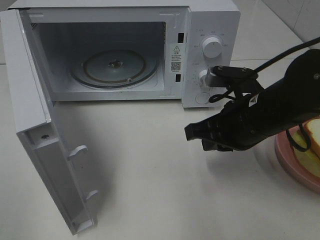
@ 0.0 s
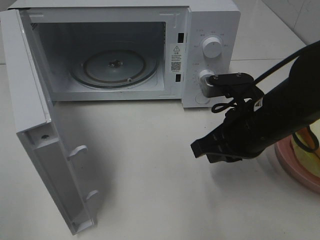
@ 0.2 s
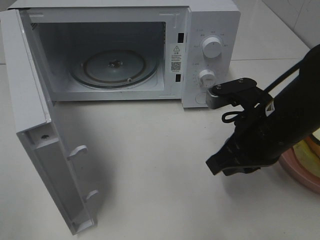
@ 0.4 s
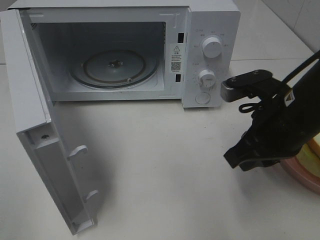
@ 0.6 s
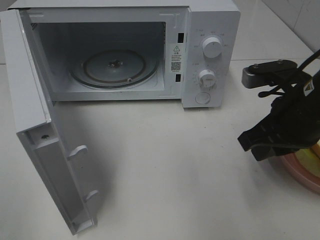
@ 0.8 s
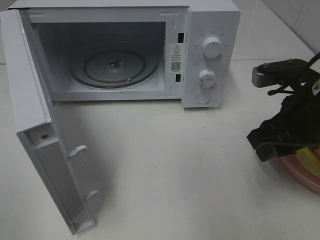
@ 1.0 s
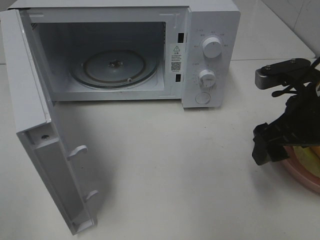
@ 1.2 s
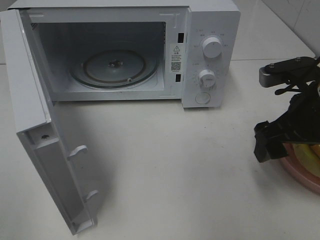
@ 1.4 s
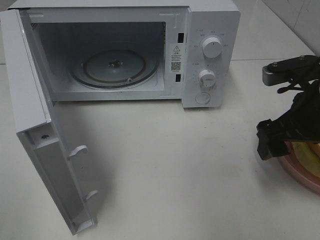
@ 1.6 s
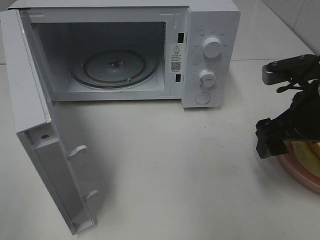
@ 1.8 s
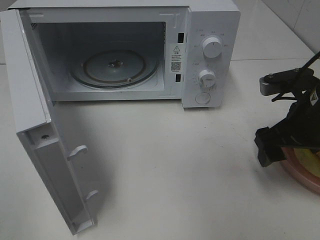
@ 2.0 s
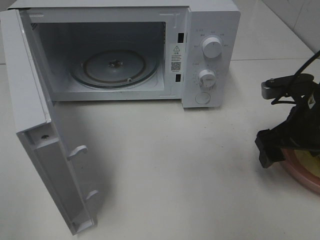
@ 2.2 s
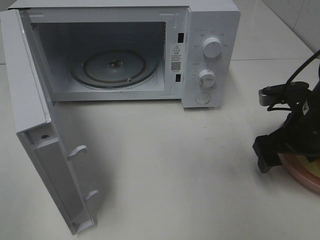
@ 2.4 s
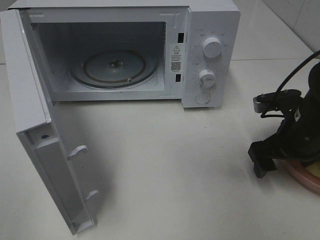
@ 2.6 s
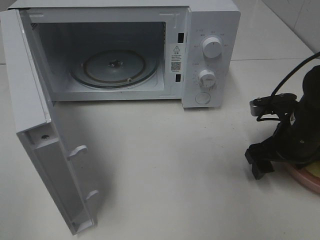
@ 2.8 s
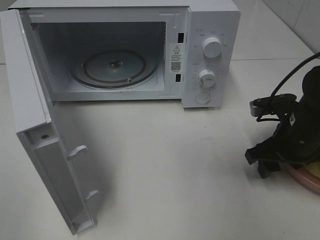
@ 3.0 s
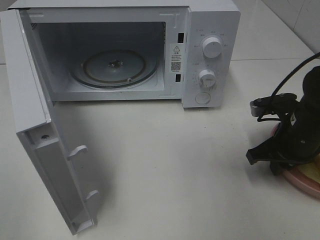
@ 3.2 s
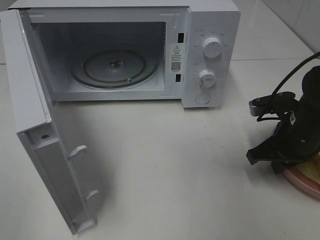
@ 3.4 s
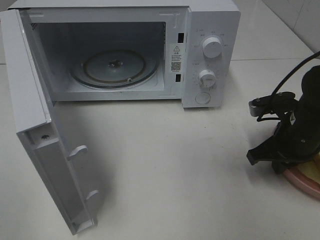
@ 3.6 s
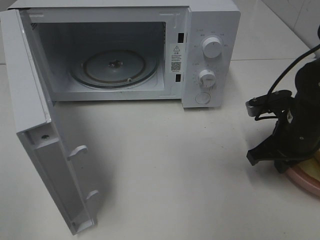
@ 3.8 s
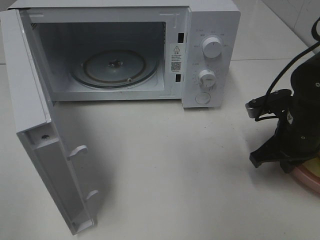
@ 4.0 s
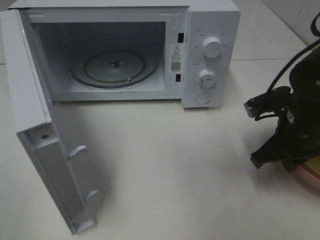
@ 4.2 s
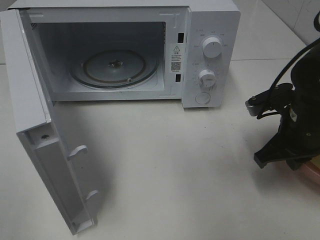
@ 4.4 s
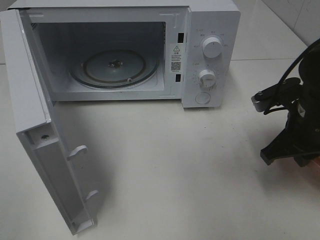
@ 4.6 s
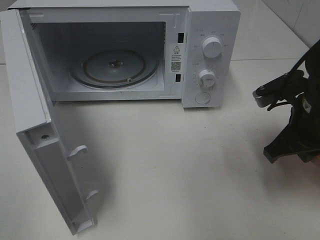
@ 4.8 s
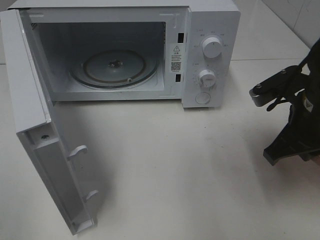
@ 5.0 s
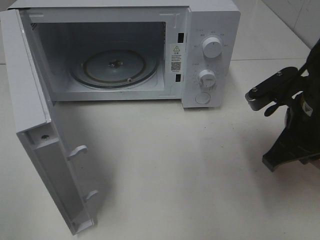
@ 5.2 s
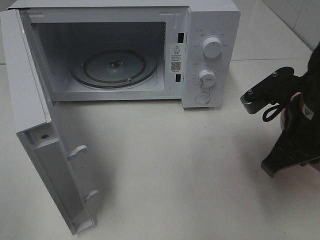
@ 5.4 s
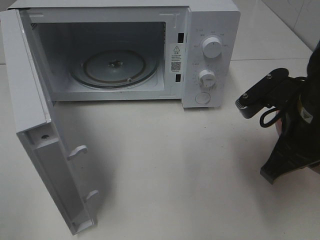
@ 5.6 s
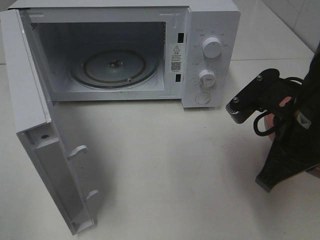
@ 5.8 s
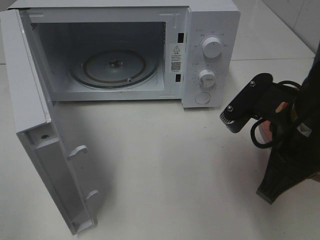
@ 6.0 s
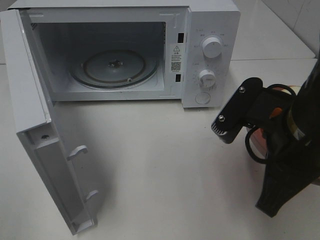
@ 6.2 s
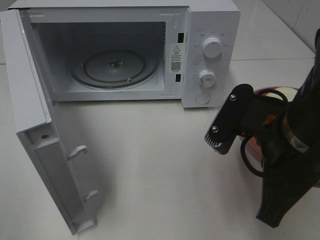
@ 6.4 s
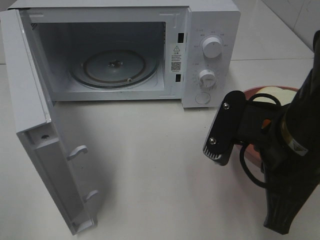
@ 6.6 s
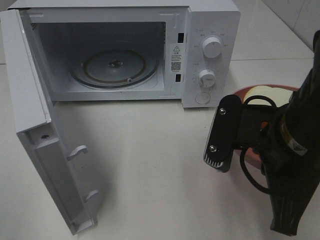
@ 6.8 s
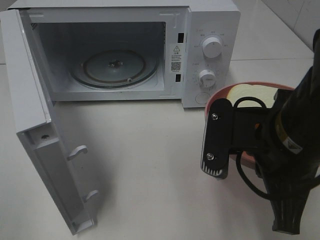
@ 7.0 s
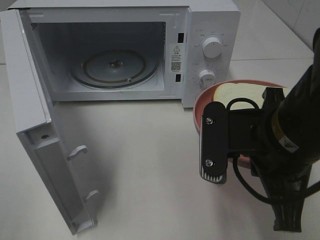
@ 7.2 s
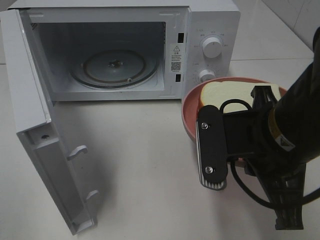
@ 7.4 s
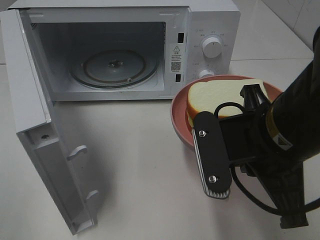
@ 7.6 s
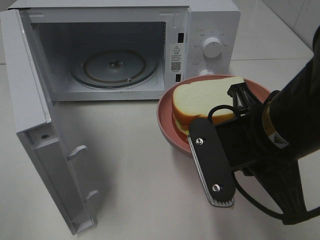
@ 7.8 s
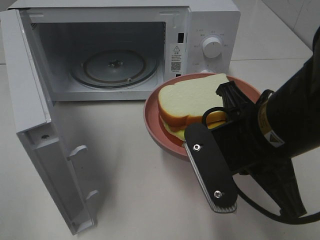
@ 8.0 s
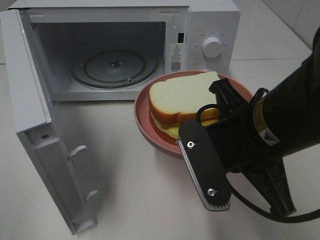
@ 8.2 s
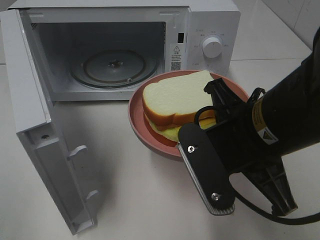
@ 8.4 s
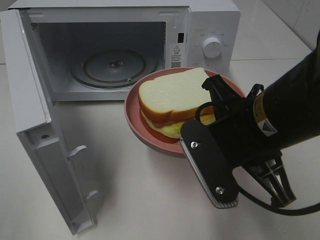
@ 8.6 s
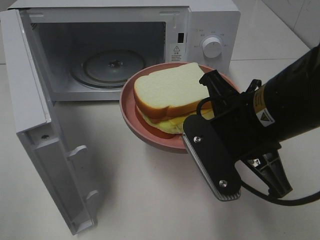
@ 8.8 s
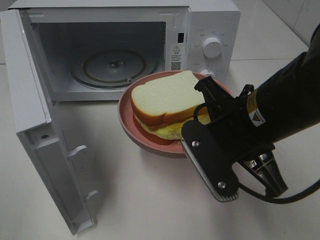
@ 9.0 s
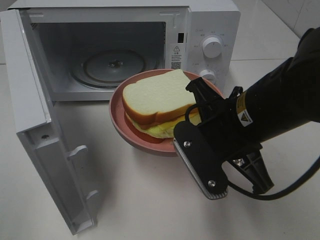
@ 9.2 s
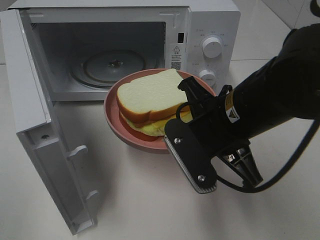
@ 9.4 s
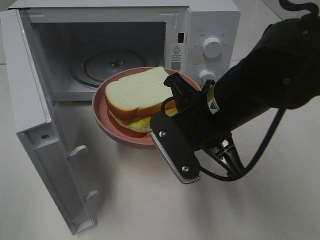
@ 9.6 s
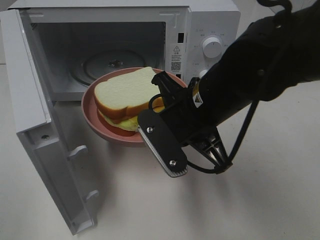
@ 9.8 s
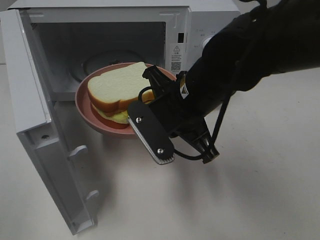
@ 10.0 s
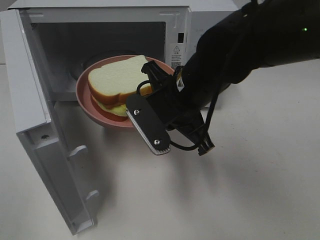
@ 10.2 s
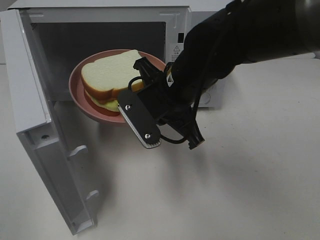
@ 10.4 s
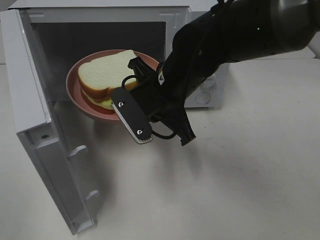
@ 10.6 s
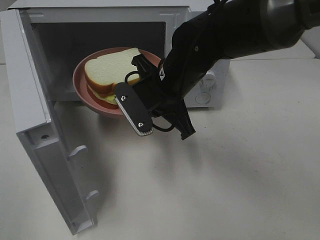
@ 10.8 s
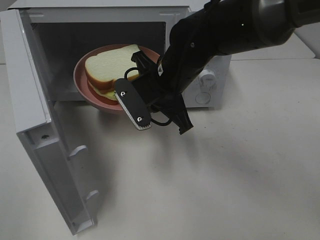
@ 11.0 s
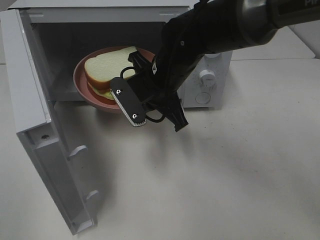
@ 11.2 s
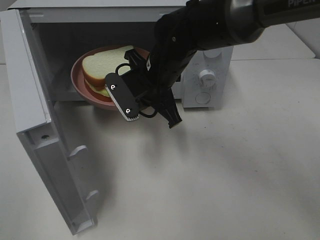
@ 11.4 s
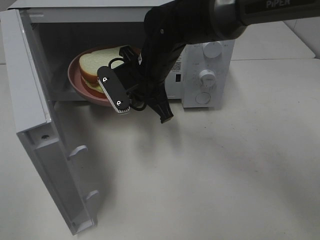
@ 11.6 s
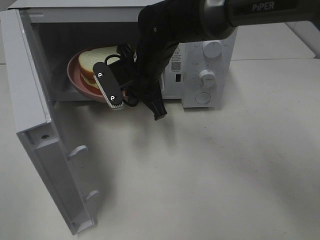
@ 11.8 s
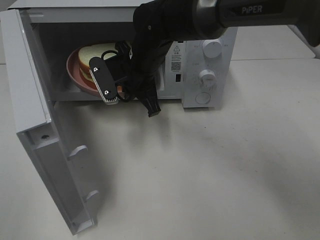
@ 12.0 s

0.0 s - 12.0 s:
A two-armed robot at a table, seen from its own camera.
Task of the whole recording: Heat Sandwich.
Step, 0.0 s - 4.2 s: Right hand: grab the plate with the sandwich.
0.0 s - 1.6 s: The right gripper moves to the right, some 10 cm, and opens.
1.6 s - 3.0 s: The right gripper is displaced downward by approximately 10 cm.
3.0 s - 4.4 s: The right gripper closes up.
4.4 s - 6.0 s: The right gripper is displaced backward, upward and to the left by about 15 cm.
9.0 s - 10.4 s: The right gripper goes roughly 10 cm forward and to the left.
10.4 s - 12.0 s: The right gripper shifts some 10 cm forward and to the left.

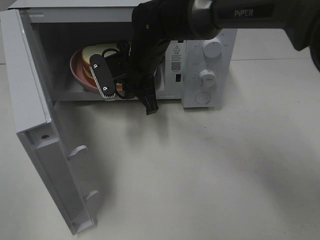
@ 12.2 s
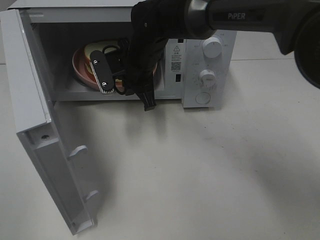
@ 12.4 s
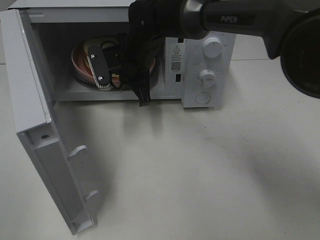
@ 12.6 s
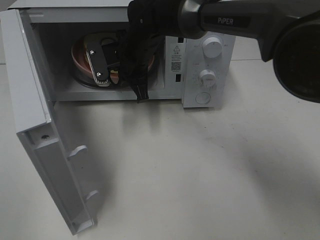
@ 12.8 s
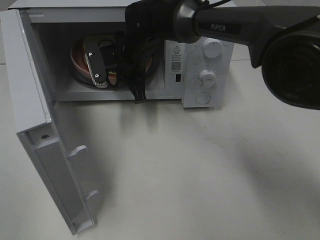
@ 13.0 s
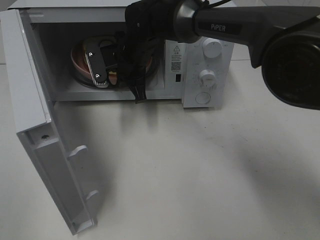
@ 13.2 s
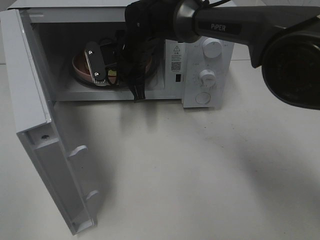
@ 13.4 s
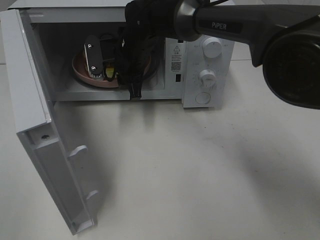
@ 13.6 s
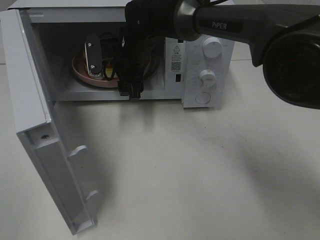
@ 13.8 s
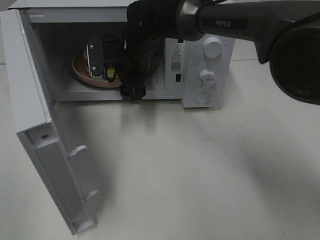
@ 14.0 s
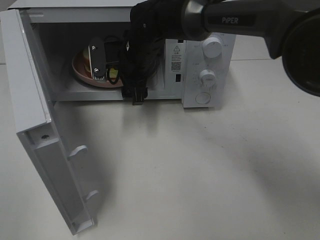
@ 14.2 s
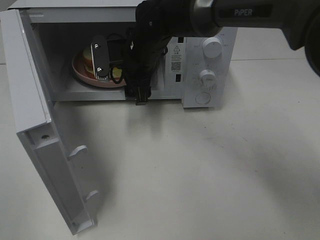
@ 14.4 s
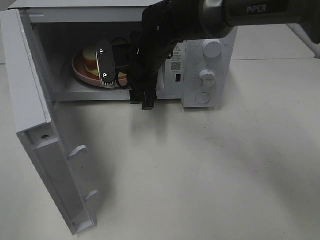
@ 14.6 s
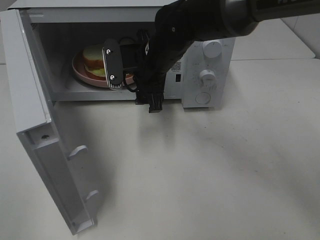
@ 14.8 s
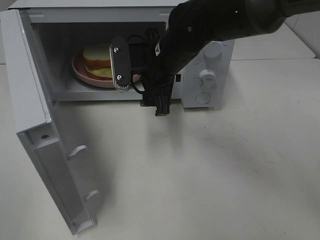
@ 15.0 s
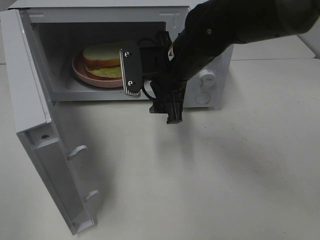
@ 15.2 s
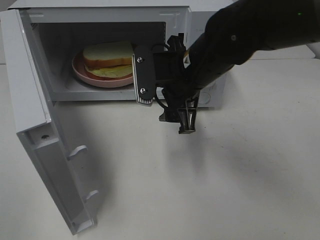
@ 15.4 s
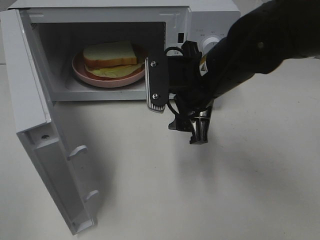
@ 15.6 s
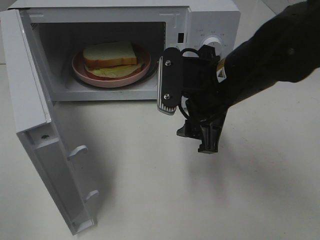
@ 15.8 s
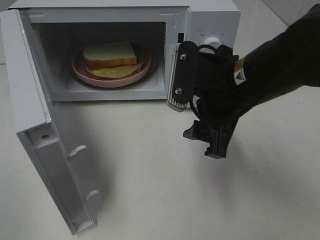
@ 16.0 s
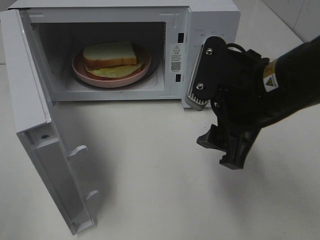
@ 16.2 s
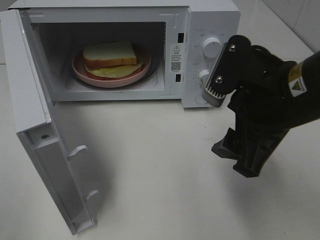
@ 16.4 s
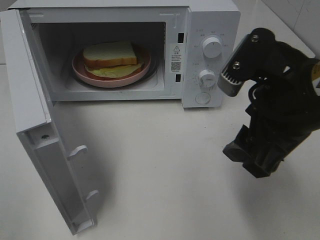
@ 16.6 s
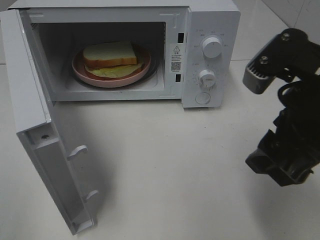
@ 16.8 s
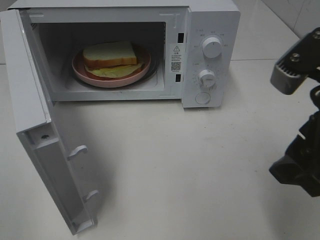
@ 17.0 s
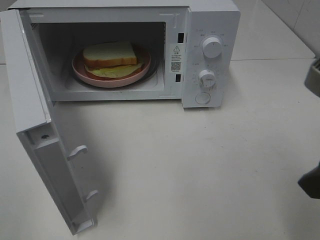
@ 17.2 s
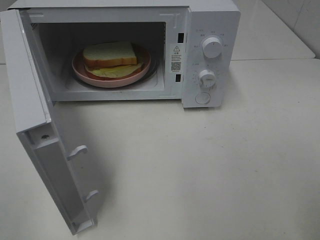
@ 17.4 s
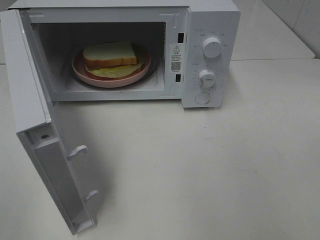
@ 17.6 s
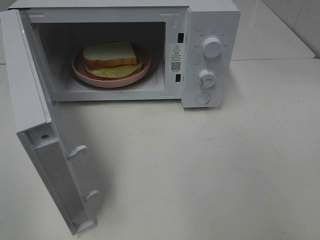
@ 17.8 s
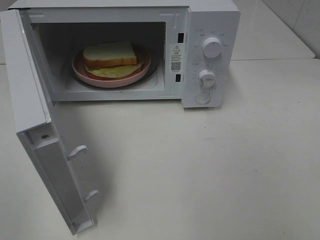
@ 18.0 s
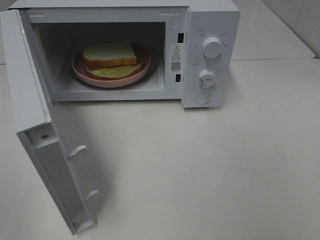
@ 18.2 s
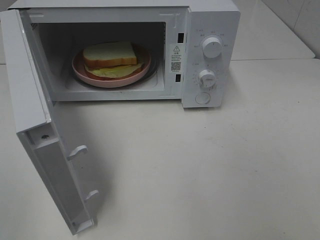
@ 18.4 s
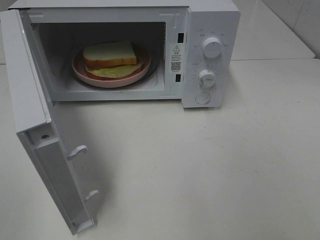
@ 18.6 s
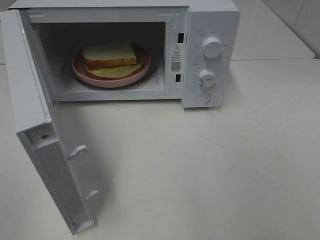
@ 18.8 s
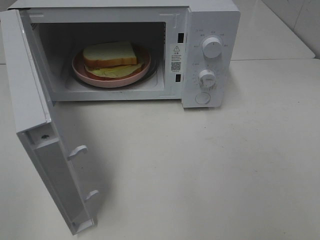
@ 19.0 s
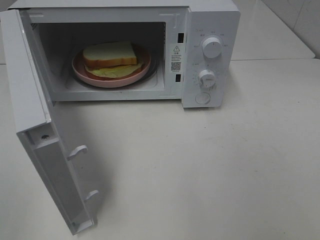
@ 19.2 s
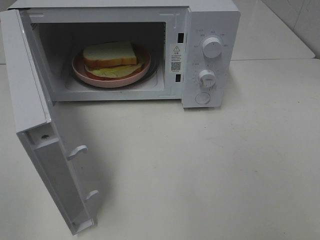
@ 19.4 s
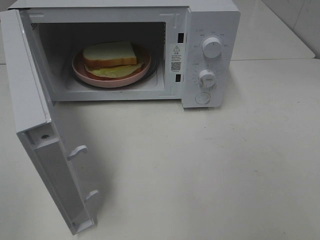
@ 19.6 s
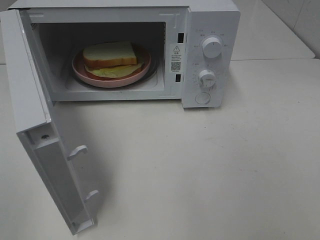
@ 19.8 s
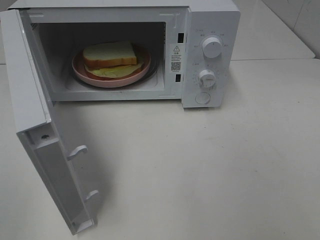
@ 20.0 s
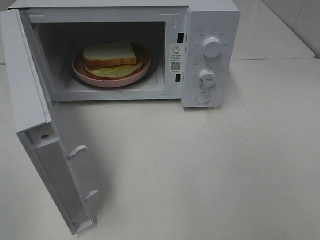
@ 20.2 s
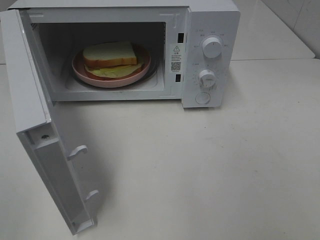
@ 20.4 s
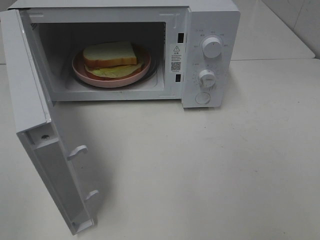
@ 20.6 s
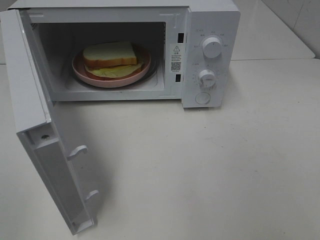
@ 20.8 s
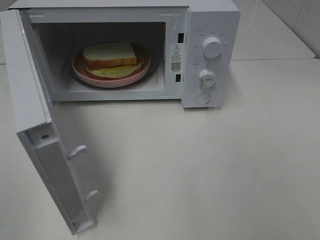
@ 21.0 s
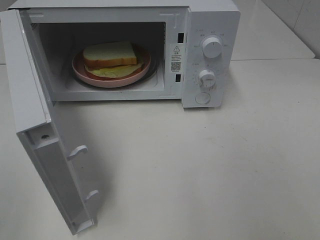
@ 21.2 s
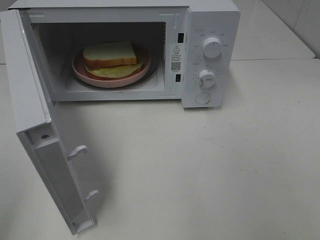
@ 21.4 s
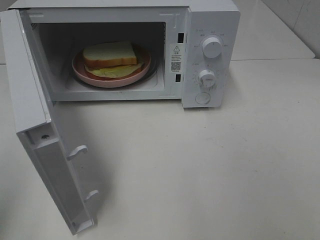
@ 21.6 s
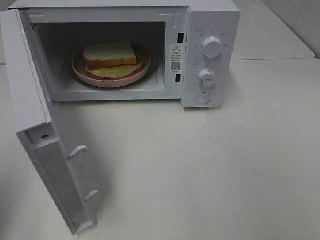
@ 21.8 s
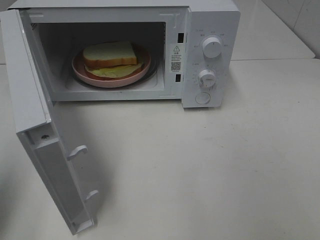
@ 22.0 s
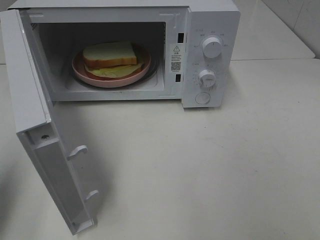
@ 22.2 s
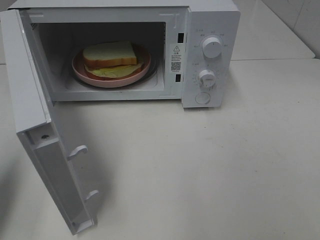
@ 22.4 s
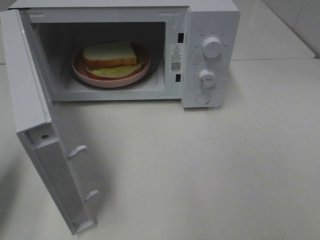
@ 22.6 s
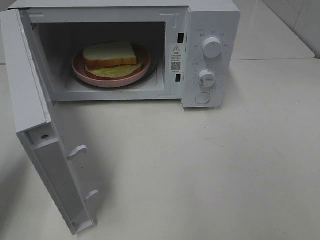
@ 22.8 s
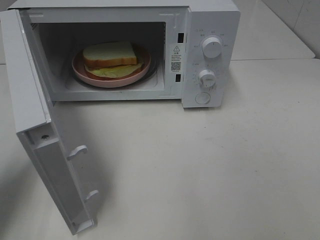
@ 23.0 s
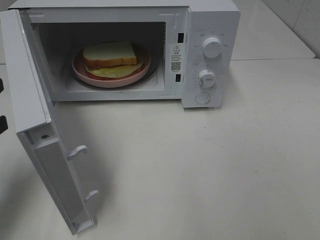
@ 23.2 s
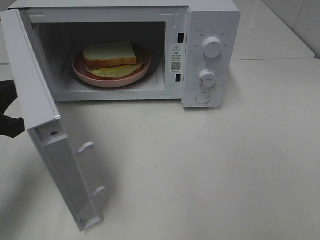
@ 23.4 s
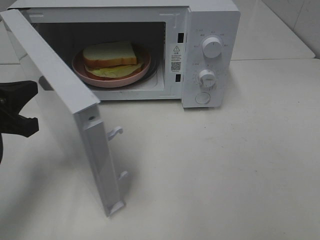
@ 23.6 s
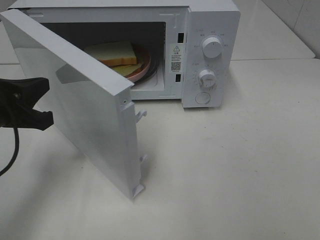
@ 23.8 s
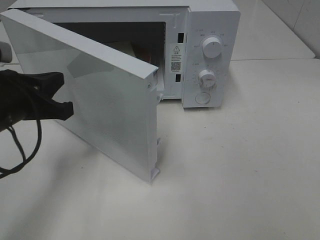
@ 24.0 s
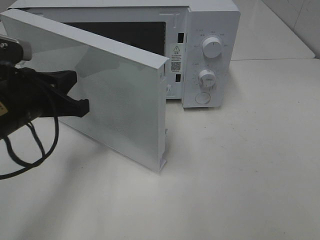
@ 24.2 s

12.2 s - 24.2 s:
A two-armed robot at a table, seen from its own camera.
Task of the whole recording: Heat Sandwich.
Step, 12.2 s - 14.4 s: Right hand: place the plate in the microwave.
12.2 s - 13.8 s: The right gripper opens up.
13.8 s - 15.2 s: The right gripper moves backward and to the right, some 15 cm.
15.2 s - 16.6 s: The right gripper is displaced backward and to the right by about 20 cm.
16.6 s - 18.2 s: The right gripper heads backward and to the right, covering approximately 20 cm.
21.2 s - 22.6 s: The left gripper travels forward and downward by roughly 15 cm, and closes its fingers.
22.6 s - 24.2 s: The left gripper travels to the right and forward by some 15 cm.
